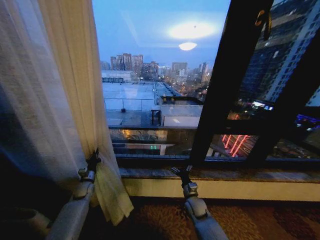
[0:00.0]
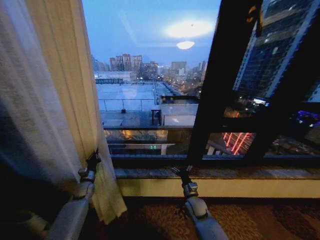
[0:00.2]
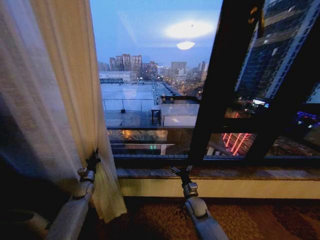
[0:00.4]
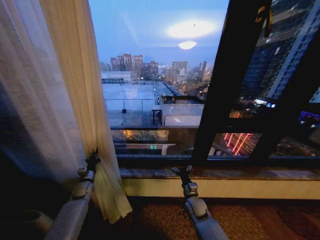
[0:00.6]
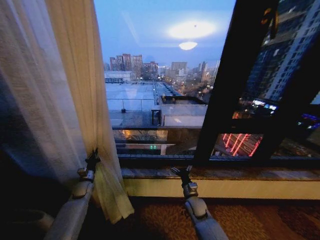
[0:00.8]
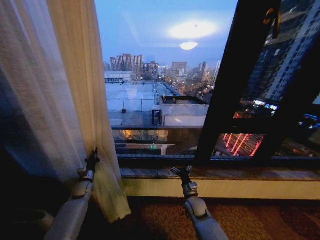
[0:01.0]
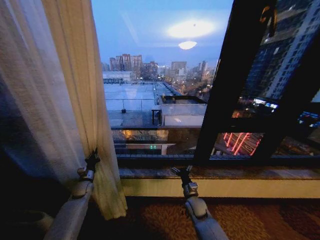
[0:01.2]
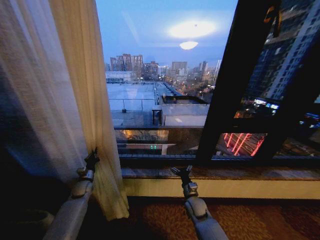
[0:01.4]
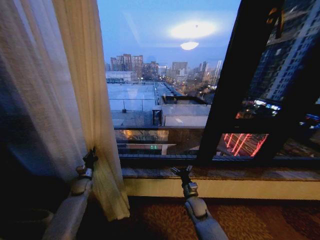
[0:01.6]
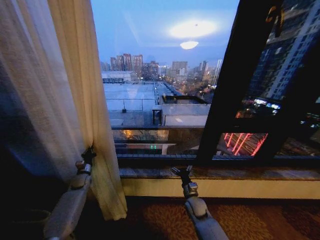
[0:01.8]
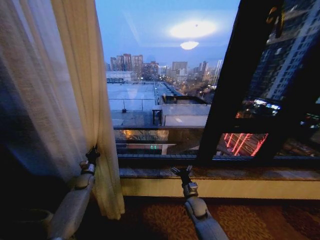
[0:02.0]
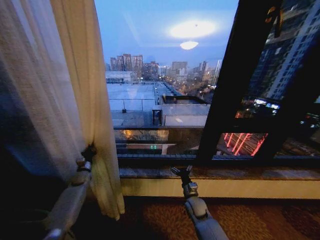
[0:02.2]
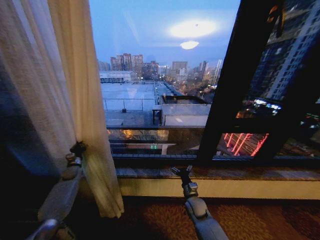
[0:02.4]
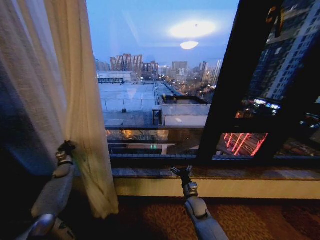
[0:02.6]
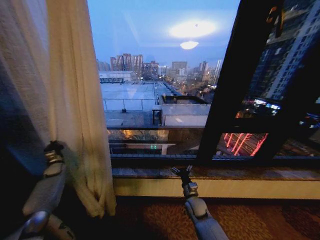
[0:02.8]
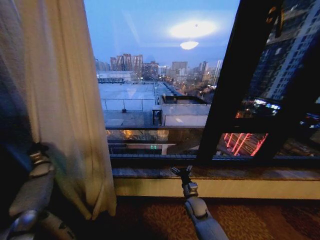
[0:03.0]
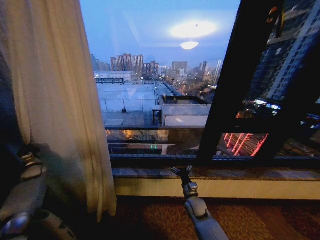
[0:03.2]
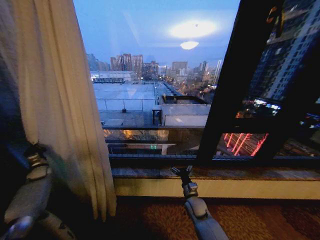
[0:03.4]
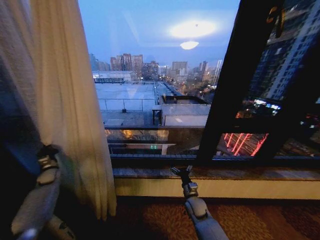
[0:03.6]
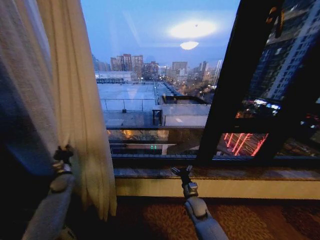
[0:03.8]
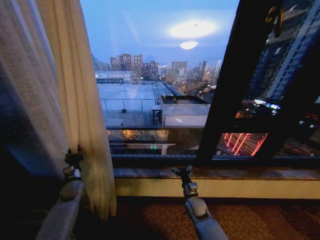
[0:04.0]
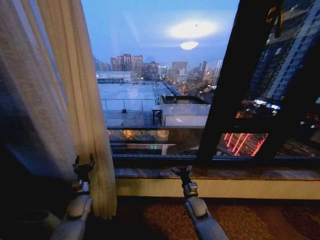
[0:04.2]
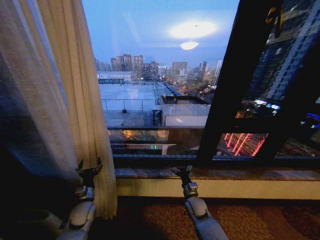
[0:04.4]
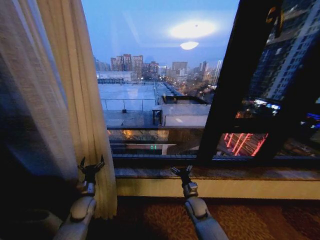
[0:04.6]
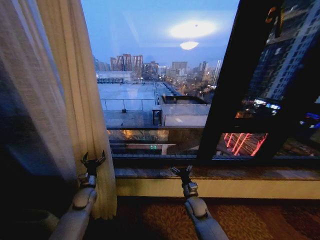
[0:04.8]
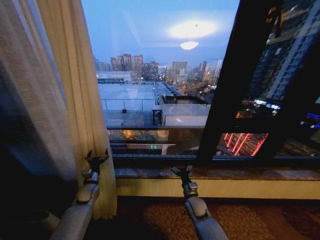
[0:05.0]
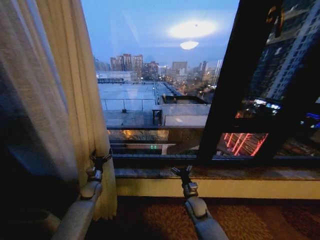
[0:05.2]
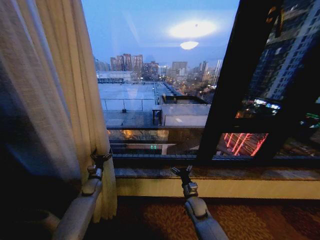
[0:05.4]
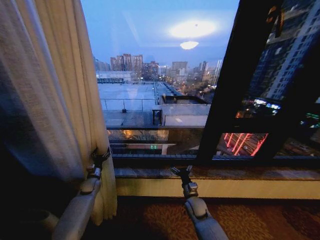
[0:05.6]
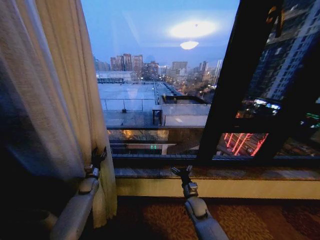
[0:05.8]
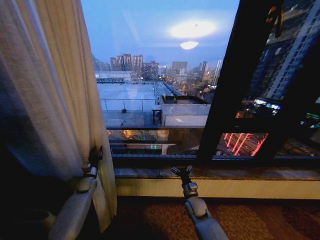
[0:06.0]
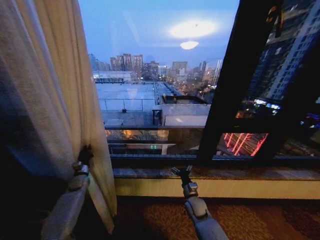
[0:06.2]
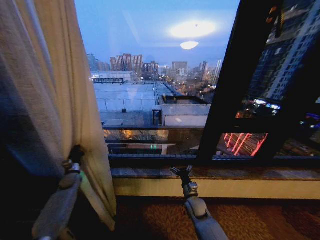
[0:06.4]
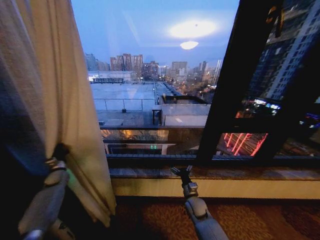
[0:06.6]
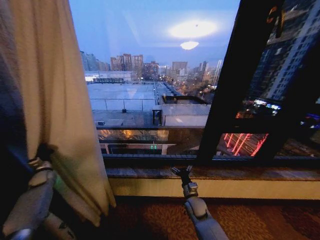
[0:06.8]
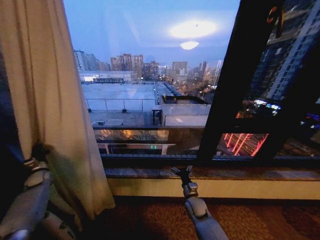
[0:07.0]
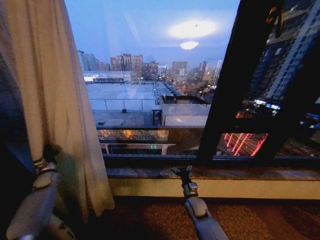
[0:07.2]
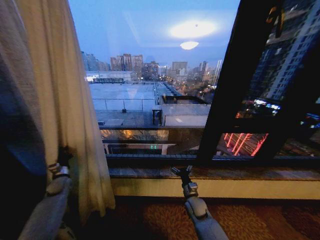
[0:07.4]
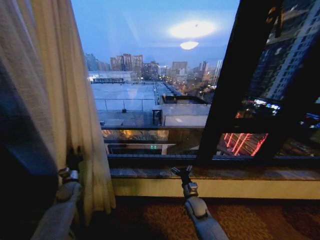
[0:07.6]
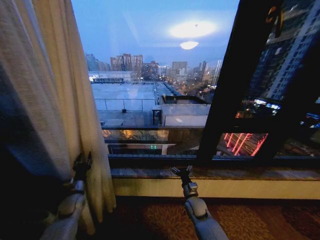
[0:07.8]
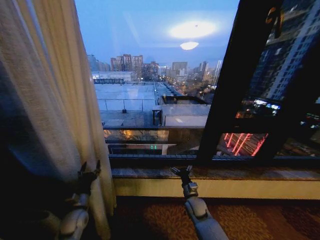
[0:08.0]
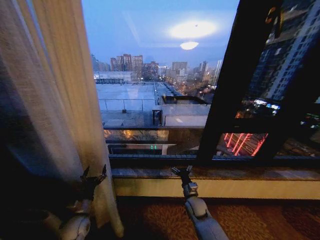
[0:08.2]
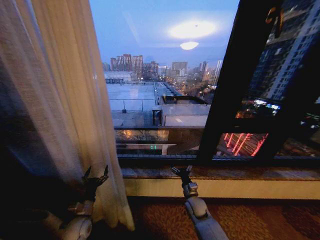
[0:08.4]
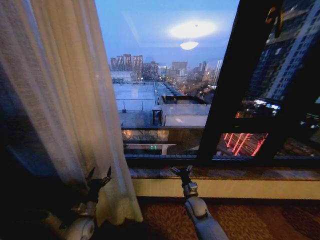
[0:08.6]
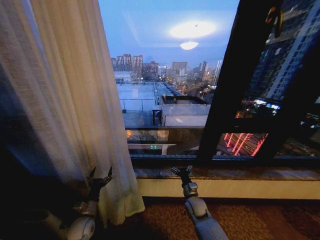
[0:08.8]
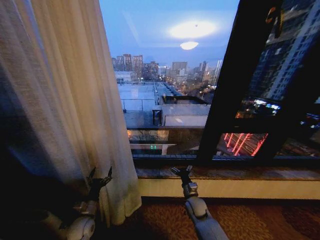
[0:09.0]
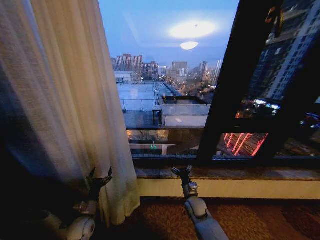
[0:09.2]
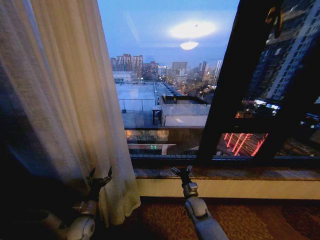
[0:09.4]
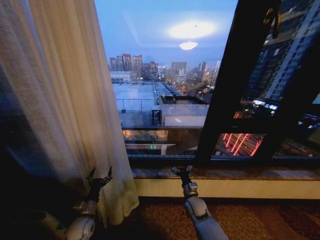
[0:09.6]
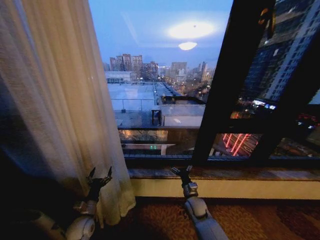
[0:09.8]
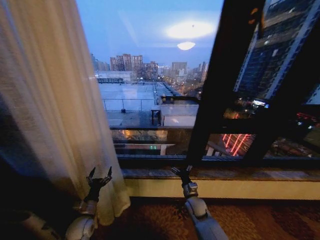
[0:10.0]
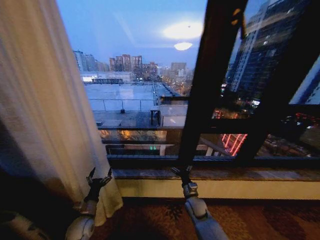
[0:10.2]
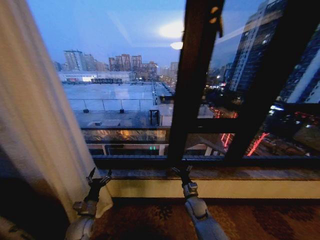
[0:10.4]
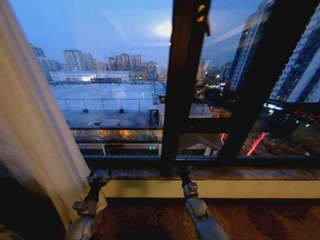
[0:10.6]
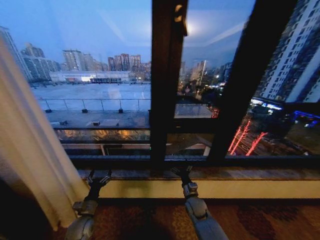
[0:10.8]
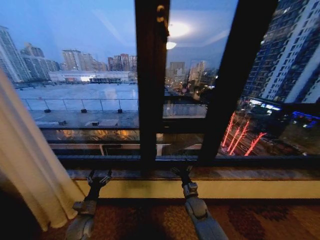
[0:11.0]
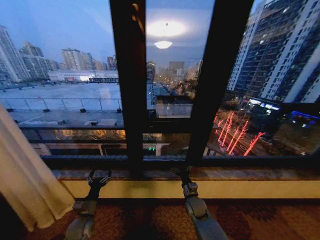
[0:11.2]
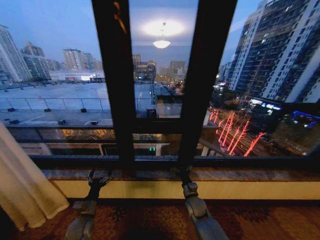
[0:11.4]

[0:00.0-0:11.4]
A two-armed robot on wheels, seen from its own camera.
Task of the whole recording: Open the curtains by pulling them apart, changing their state from closed to fully open.
0:00.0 to 0:01.4: Both grippers stay put.
0:01.4 to 0:02.8: The left gripper is displaced to the left, upward and forward by approximately 20 cm.
0:02.8 to 0:04.2: The left gripper heads to the right and backward, covering about 25 cm, and opens its fingers.
0:04.2 to 0:05.6: The left gripper shifts approximately 10 cm forward.
0:05.6 to 0:07.2: The left gripper goes roughly 20 cm to the left, and closes.
0:07.2 to 0:08.6: The left gripper shifts some 30 cm to the right and backward, and opens up.
0:08.6 to 0:10.0: The two grippers keep their place.
